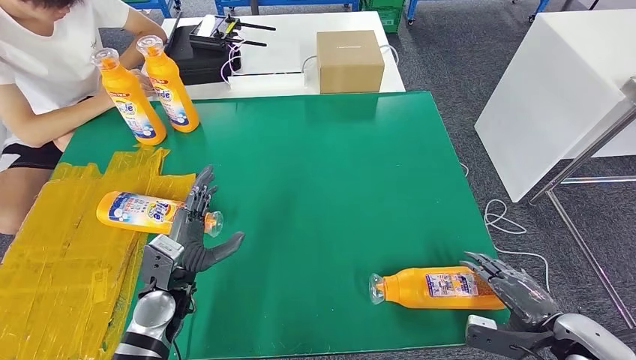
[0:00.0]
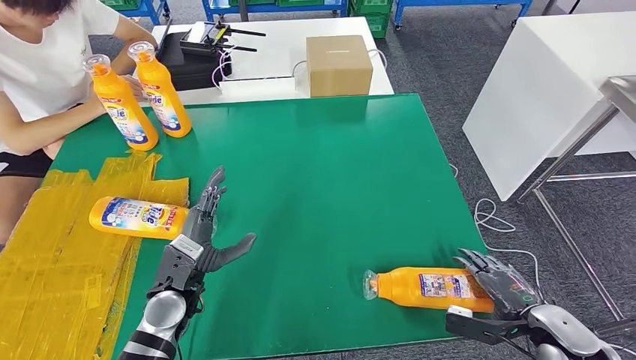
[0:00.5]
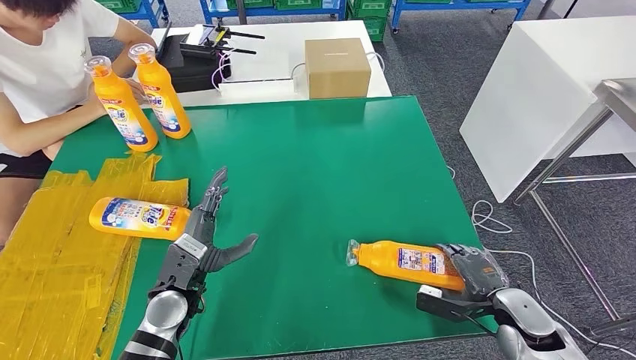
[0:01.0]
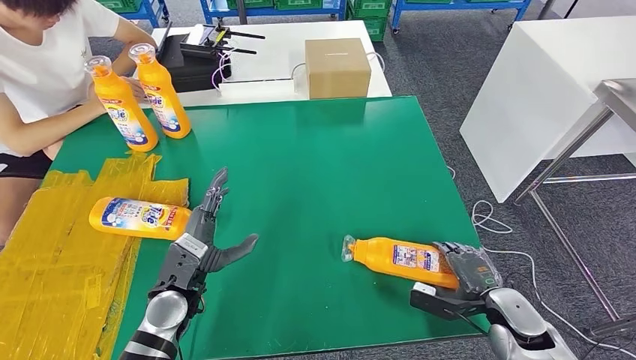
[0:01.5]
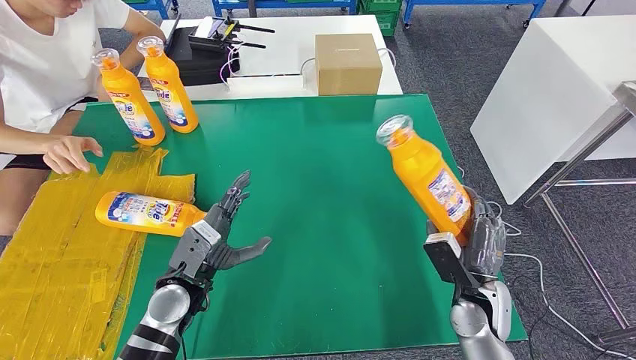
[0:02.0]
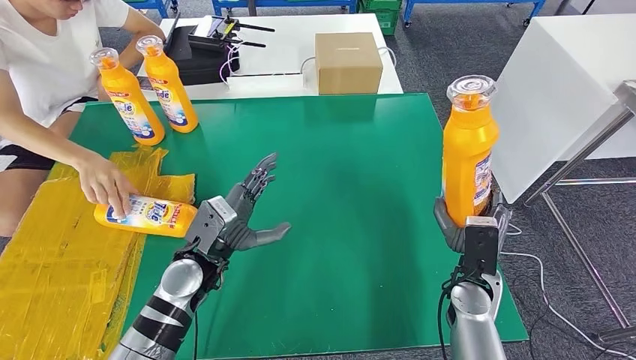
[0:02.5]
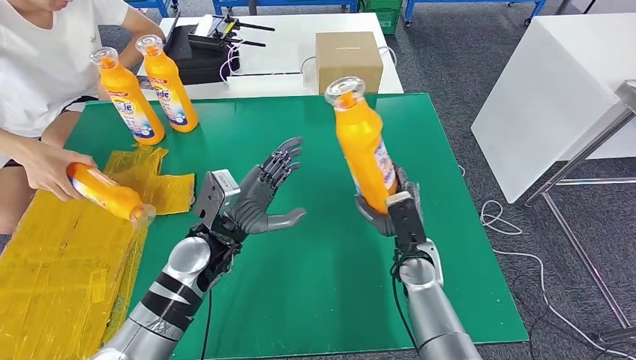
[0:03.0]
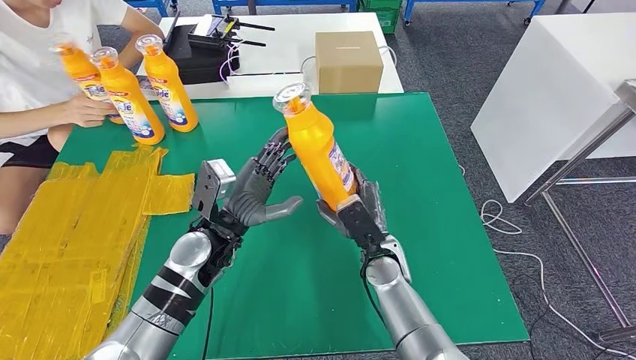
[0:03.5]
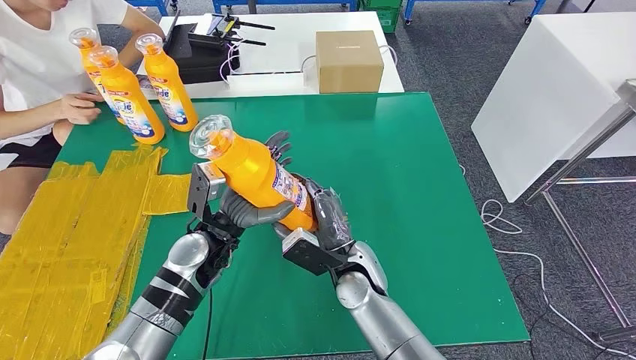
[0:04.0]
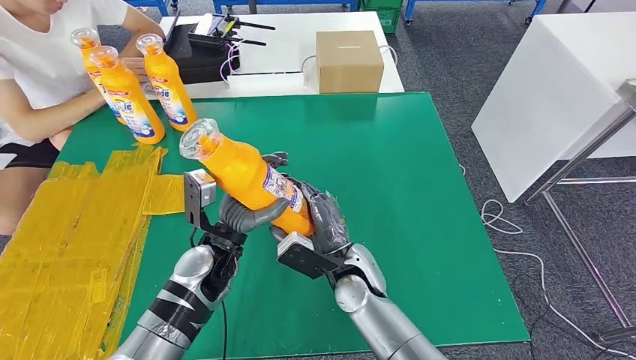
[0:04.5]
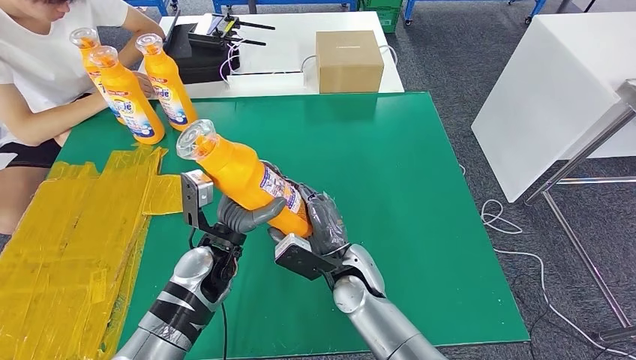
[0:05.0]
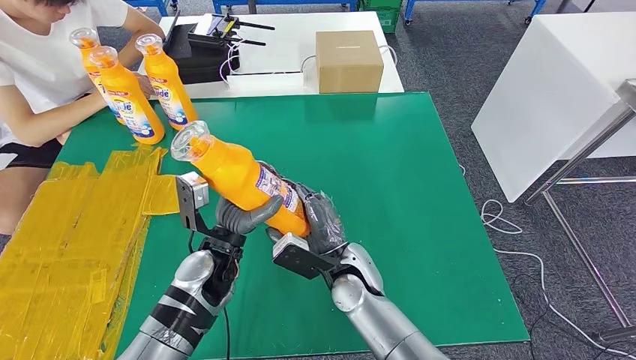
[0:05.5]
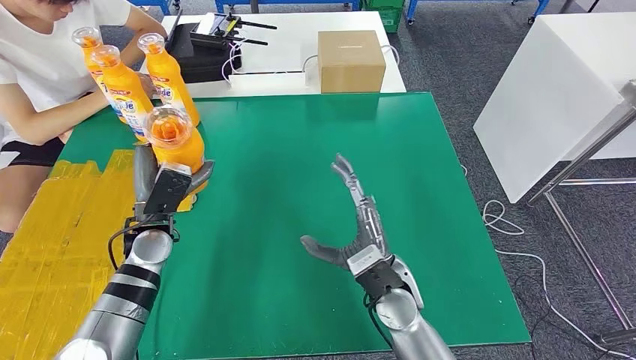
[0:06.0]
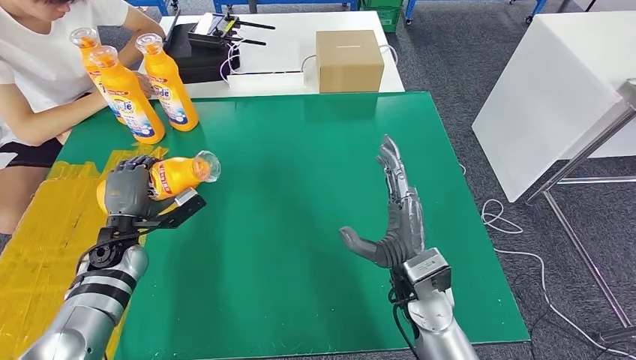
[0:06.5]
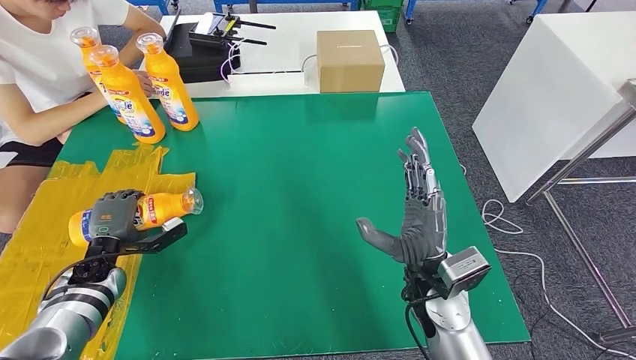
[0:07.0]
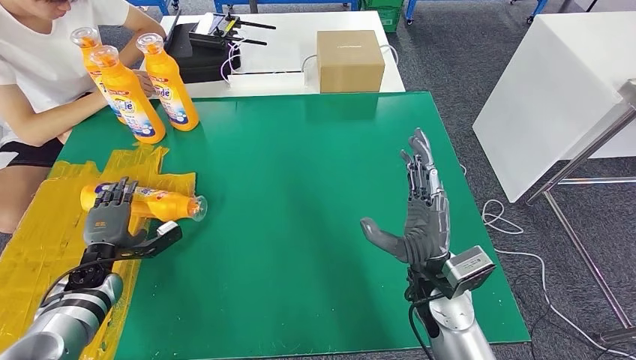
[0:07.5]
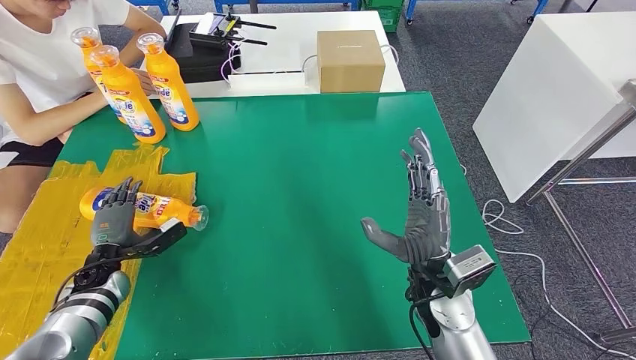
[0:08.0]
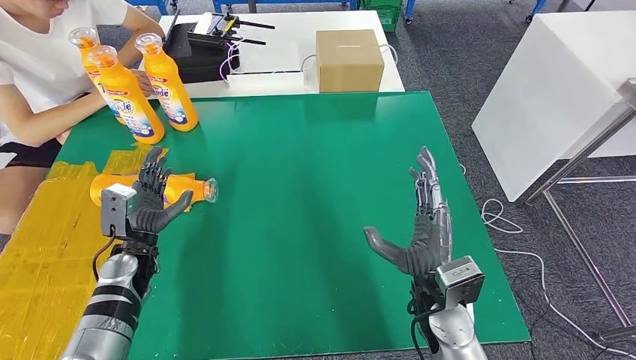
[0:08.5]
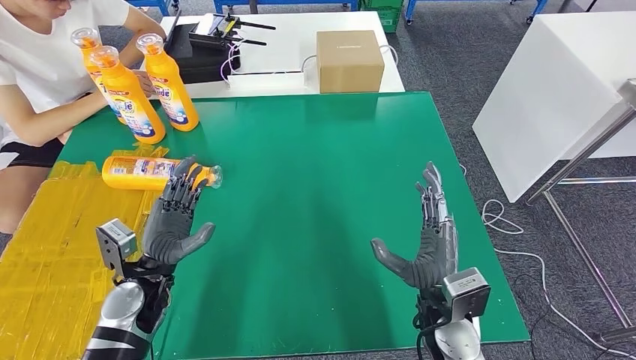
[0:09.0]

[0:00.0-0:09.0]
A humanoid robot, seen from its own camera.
Step, 0:00.0 to 0:03.0: Pick up the fast-moving consumer goods bottle from the table.
Step, 0:07.5 to 0:09.0: Flip the fast-moving consumer goods bottle to the front side.
0:07.0 to 0:09.0: The right hand ends up some 5 cm from where it was. Meanwhile the left hand heads to the right, backward and upward, covering roughly 15 cm.
